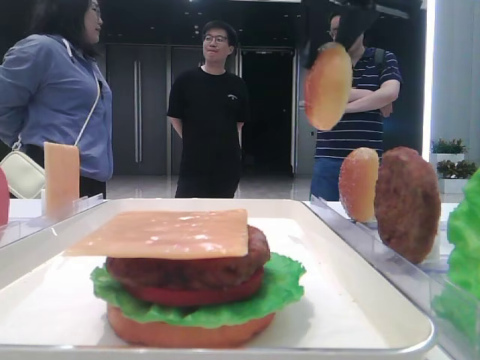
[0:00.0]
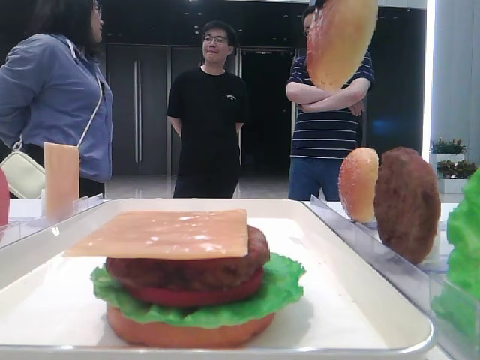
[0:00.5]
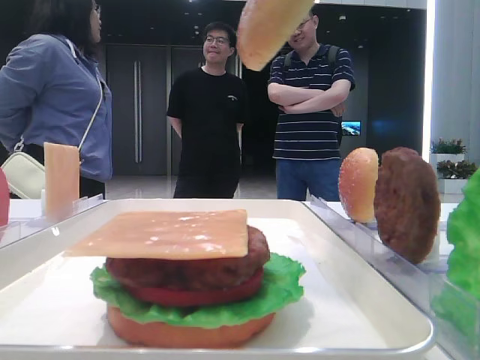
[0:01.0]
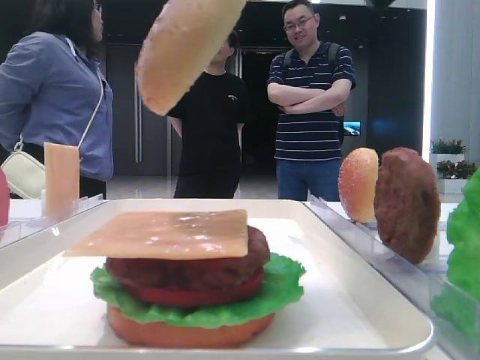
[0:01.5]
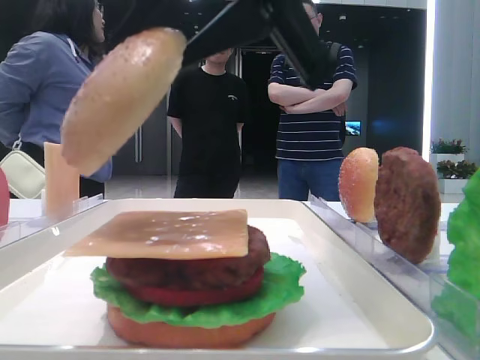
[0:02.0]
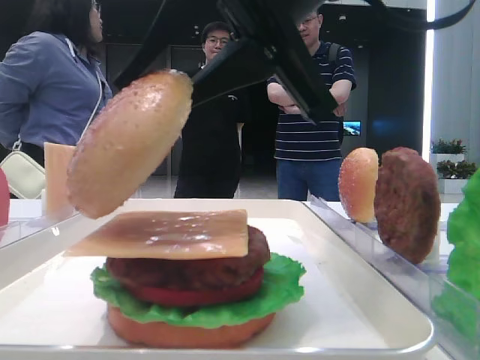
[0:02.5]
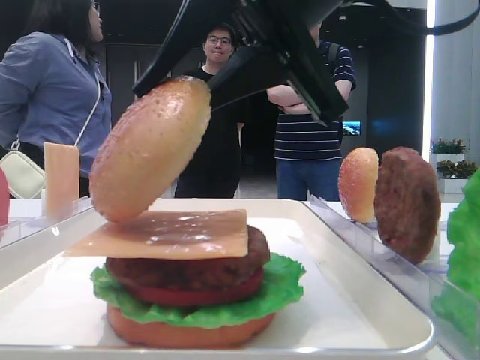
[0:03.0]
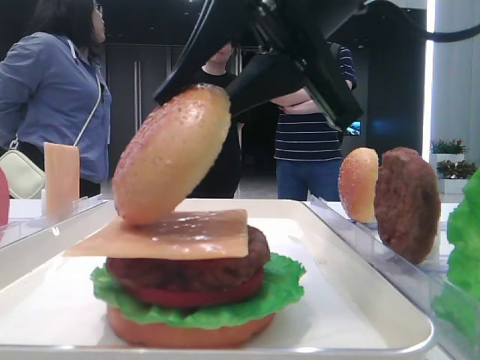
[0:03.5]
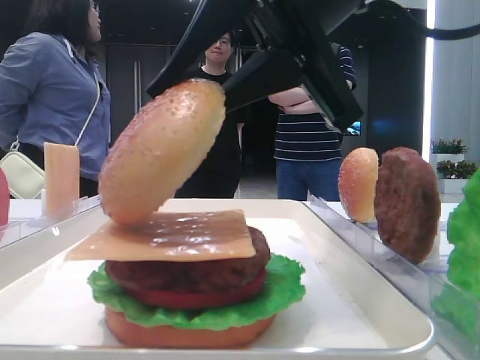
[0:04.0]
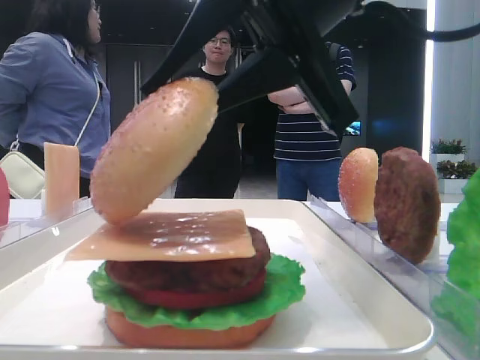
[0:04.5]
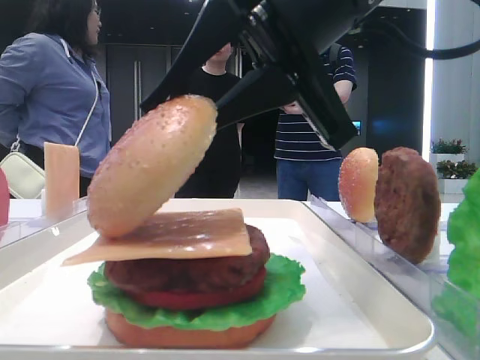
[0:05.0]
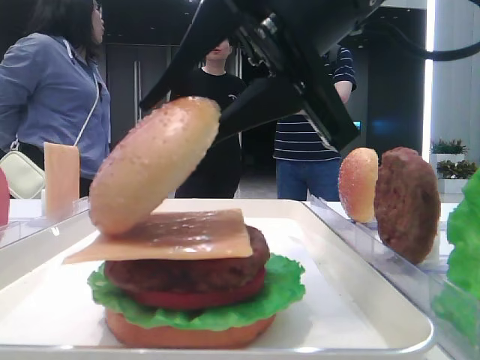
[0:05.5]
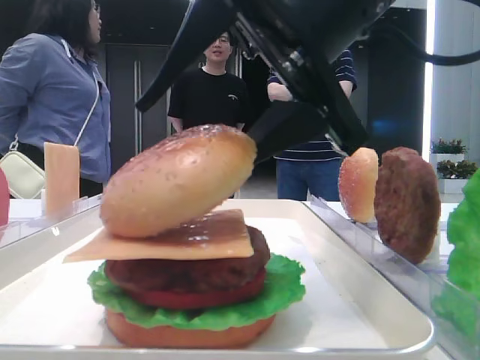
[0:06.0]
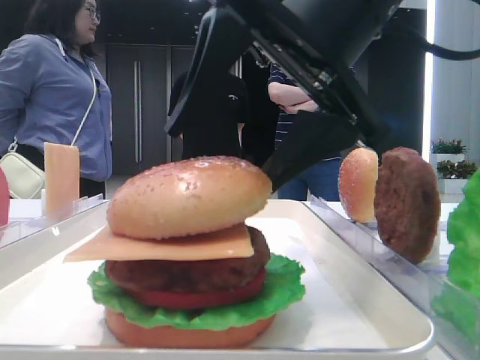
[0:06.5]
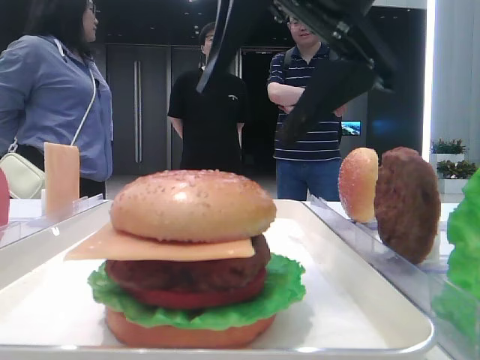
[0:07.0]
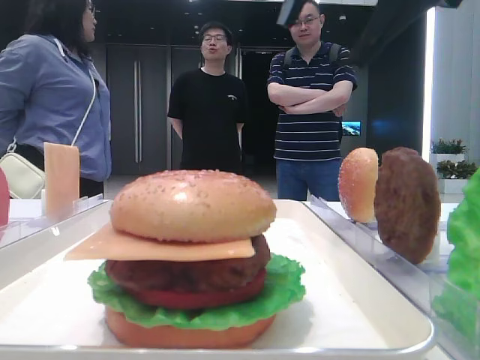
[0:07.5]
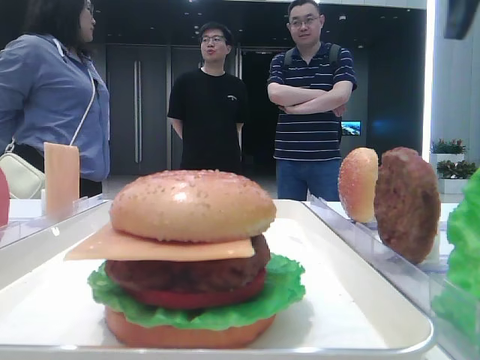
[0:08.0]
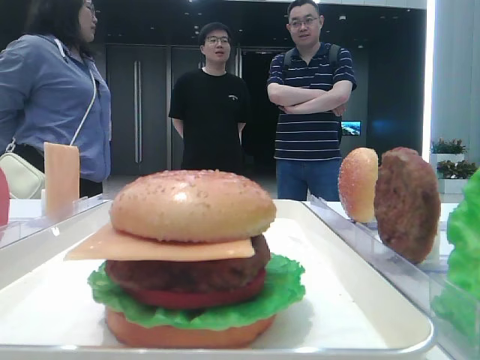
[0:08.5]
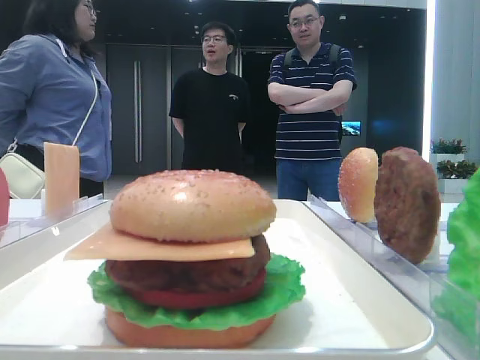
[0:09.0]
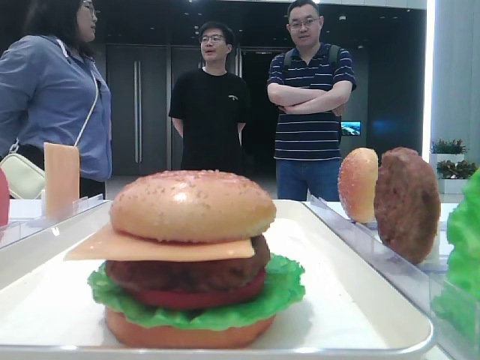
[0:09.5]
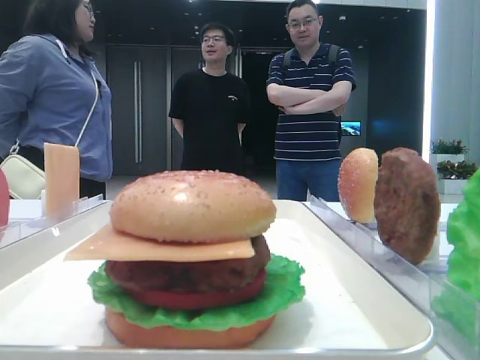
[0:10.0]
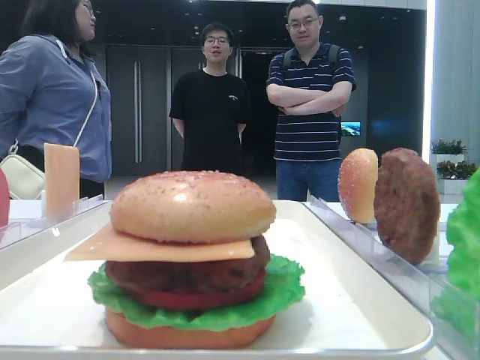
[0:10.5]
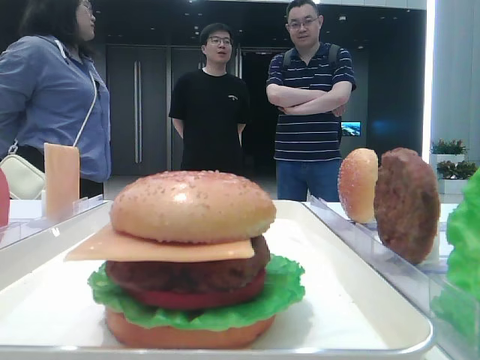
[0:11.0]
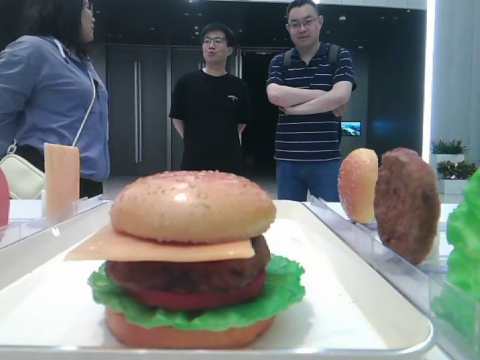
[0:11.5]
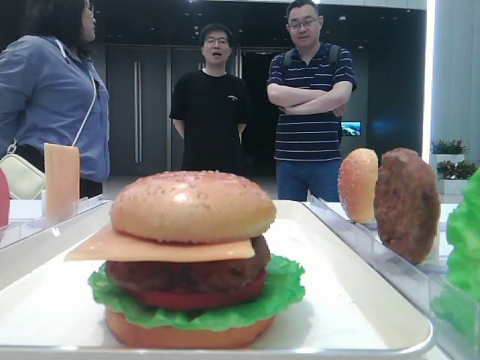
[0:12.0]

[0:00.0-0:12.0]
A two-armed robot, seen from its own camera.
Step, 0:00.0 to 0:06.5: Place the top bread slice on the cheese with the right hand.
0:00.0 to 0:02.0: The right gripper shifts about 20 cm backward, downward and to the left.
0:02.0 to 0:04.0: There are only small adjustments of the grippers.
0:04.0 to 0:06.0: The right gripper opens up.
0:06.0 to 0:08.0: The right gripper shifts roughly 20 cm to the right and upward.
0:08.0 to 0:10.0: The right gripper travels backward by some 20 cm.

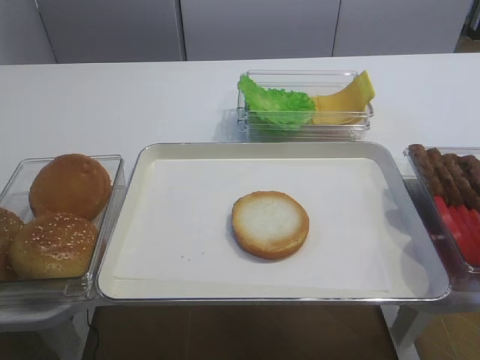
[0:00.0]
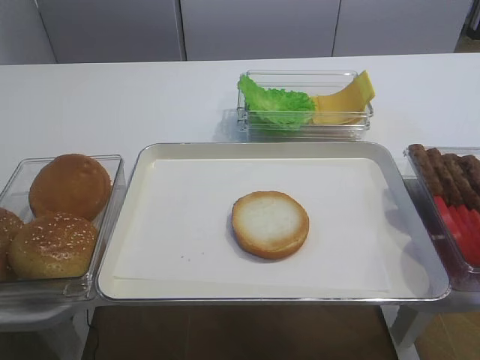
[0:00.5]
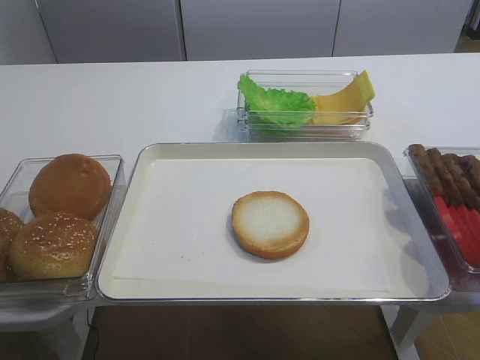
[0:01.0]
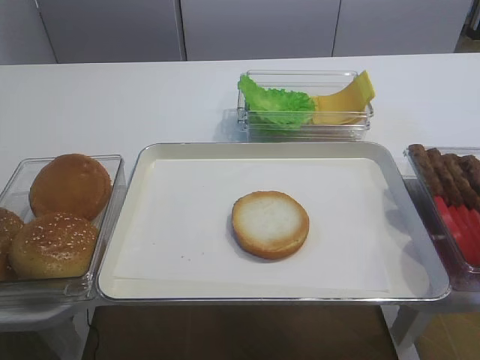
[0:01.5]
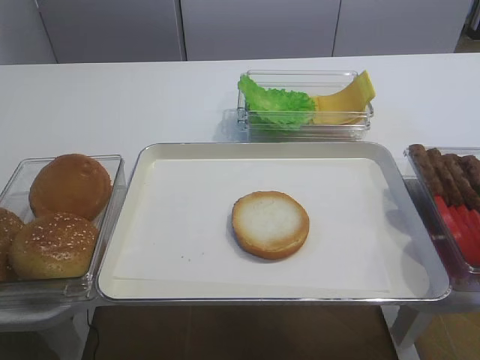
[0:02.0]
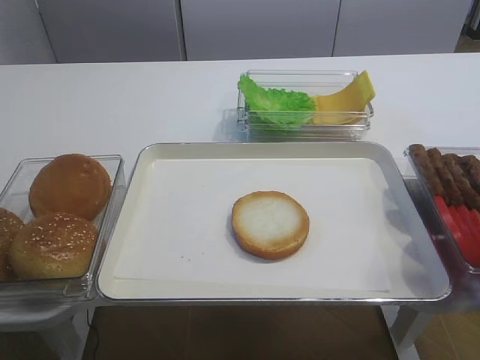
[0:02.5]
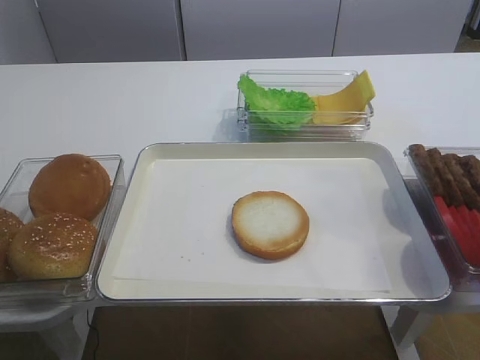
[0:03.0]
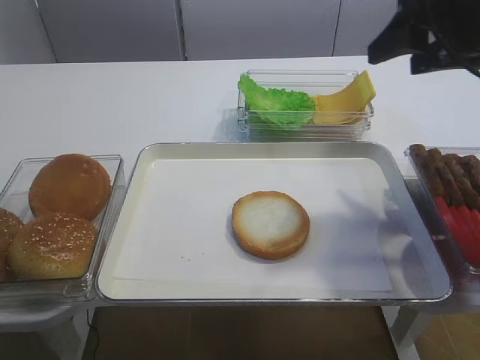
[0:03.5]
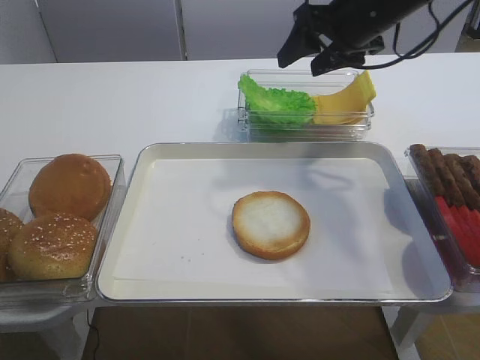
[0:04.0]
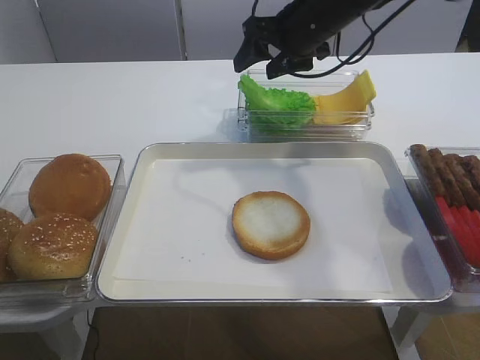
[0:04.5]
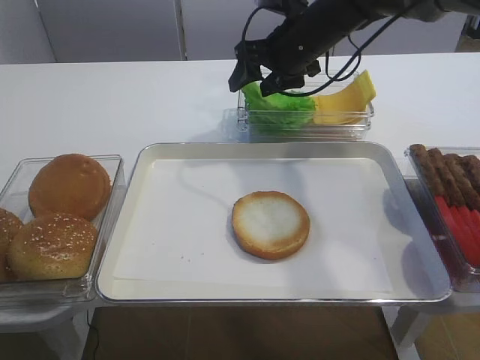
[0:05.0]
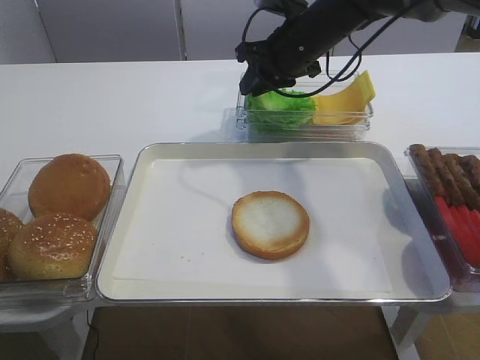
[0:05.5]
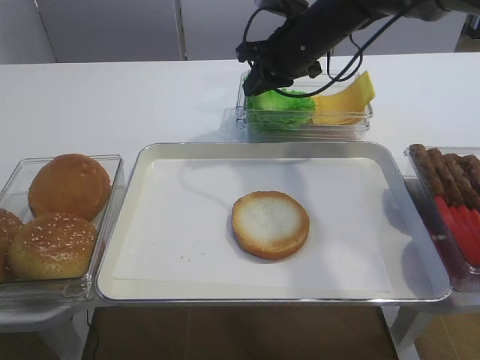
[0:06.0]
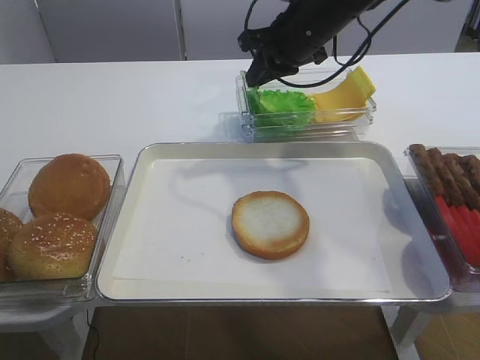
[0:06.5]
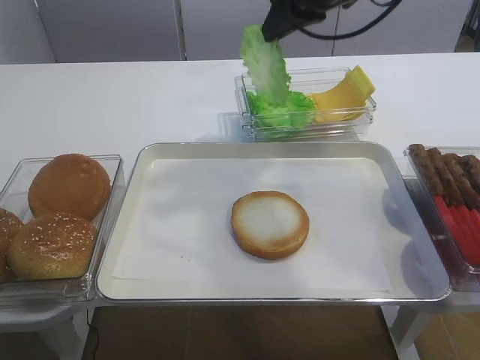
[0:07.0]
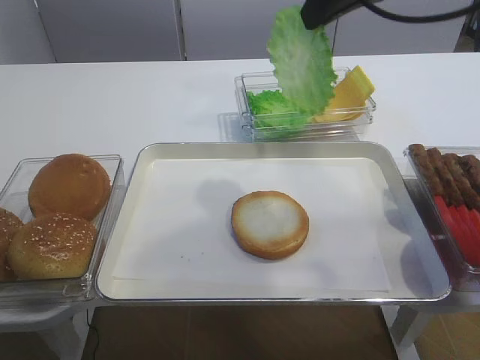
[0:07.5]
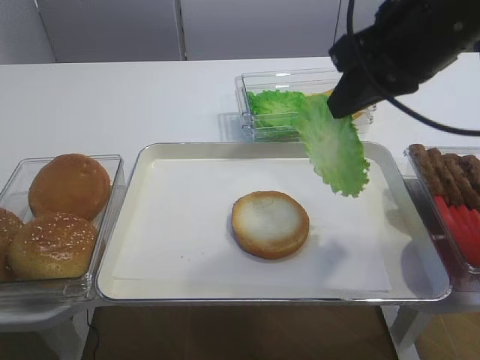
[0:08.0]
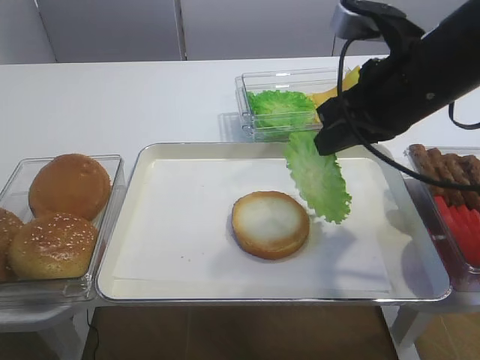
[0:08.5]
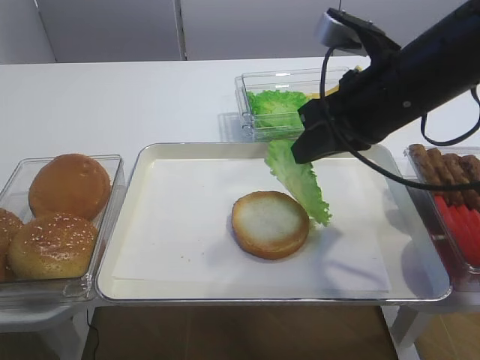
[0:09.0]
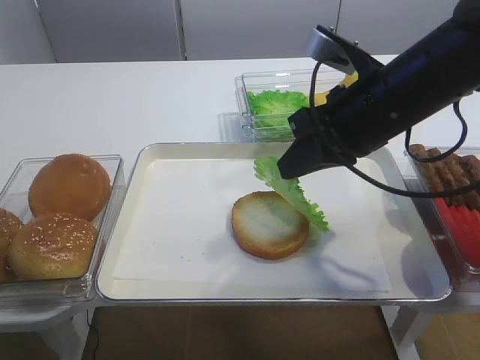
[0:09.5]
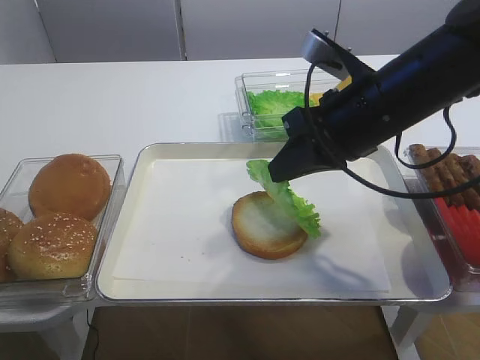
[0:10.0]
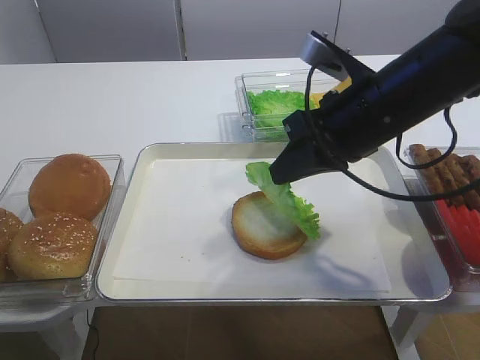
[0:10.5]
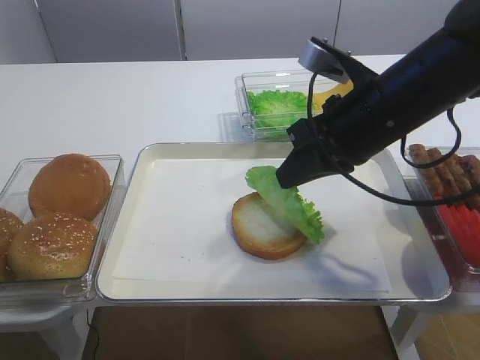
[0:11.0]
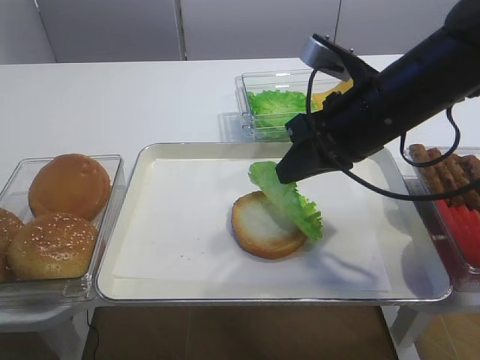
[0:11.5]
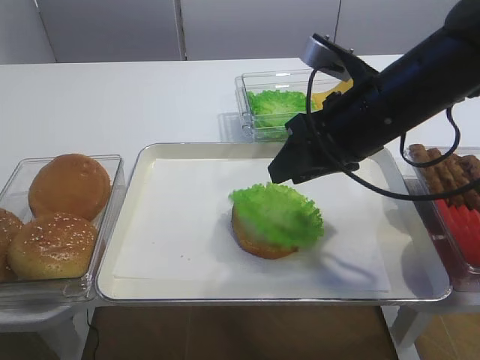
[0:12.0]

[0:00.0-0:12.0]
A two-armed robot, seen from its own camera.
Step, 0:00.0 to 0:06.5: Pick up the lettuce leaf with the right gripper.
Step, 0:07.0 to 0:12.0: Place the lettuce leaf on the bread slice with the right gripper.
0:02.0 to 0:04.0: The right gripper is displaced forward by some 40 cm.
0:04.0 to 0:06.0: The right gripper shifts about 5 cm to the left, and closes.
0:06.0 to 0:08.0: The right gripper shifts approximately 20 cm backward and upward.
0:08.0 to 0:10.0: The right gripper shifts roughly 10 cm downward.
0:10.0 to 0:12.0: The right gripper opens.

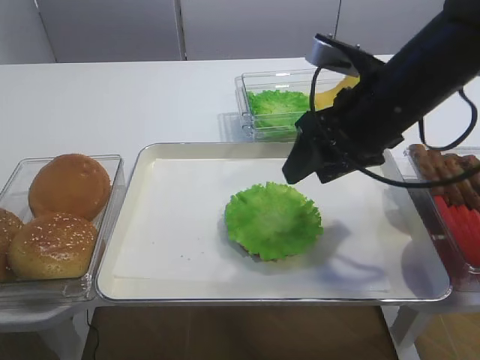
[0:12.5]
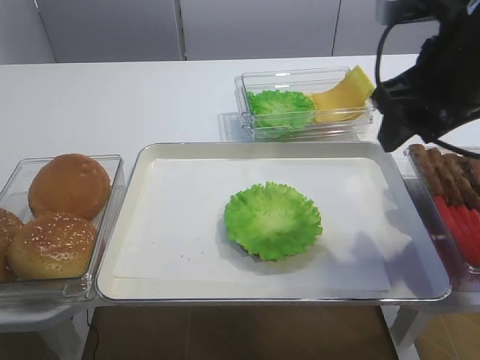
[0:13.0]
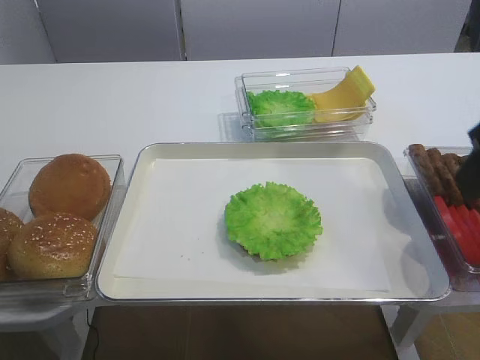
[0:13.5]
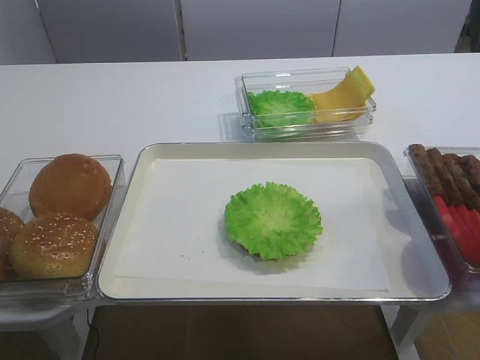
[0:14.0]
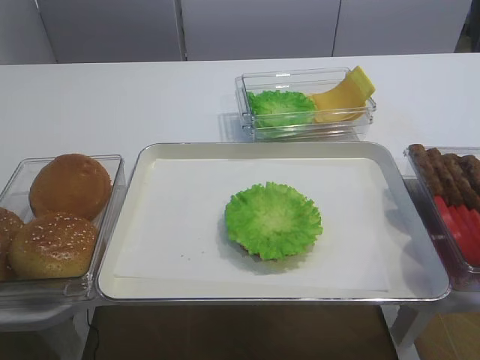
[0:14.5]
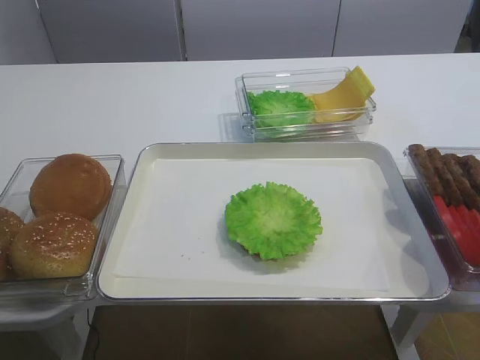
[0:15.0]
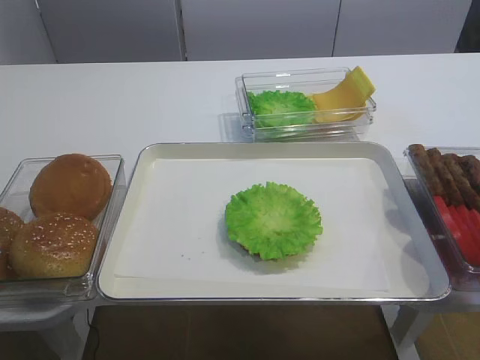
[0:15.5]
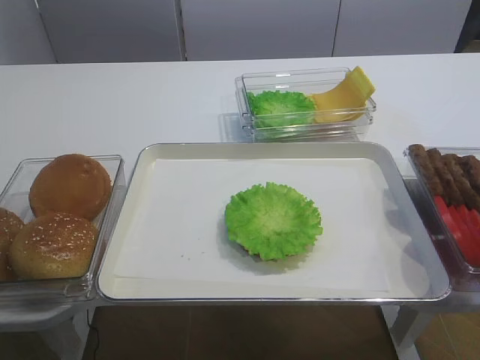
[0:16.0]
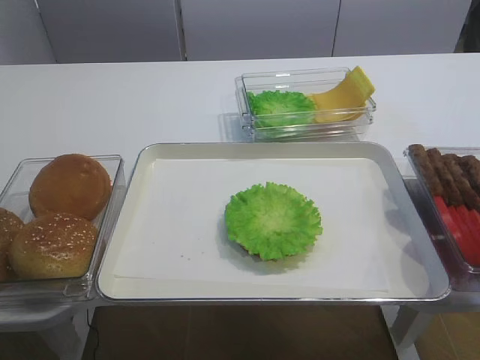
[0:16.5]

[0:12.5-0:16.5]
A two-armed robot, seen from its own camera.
0:12.5 to 0:14.5: The right gripper moves backward and to the right, approximately 35 cm.
